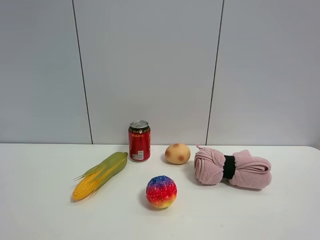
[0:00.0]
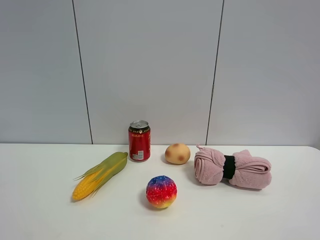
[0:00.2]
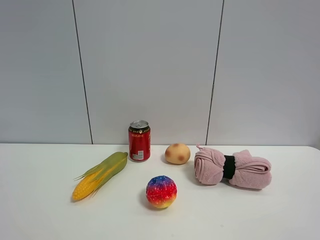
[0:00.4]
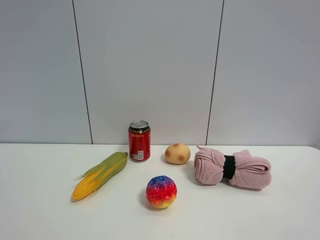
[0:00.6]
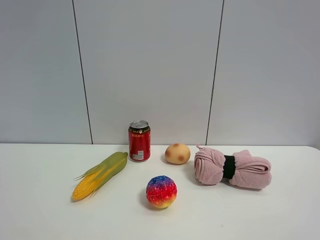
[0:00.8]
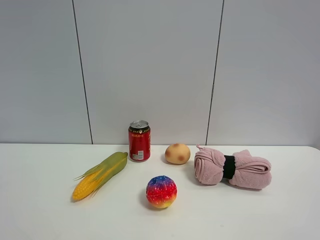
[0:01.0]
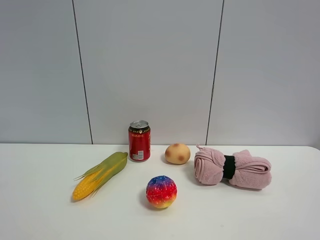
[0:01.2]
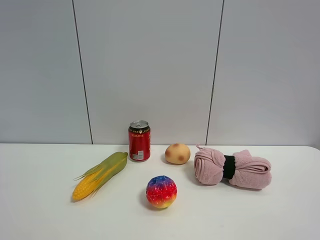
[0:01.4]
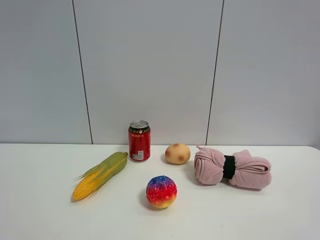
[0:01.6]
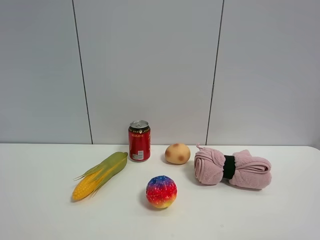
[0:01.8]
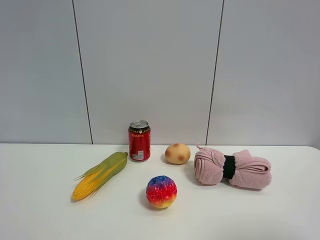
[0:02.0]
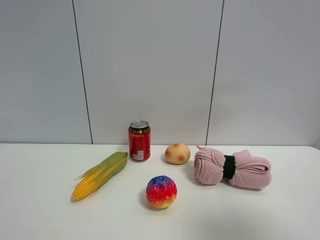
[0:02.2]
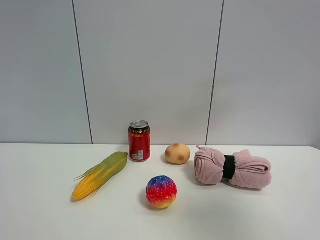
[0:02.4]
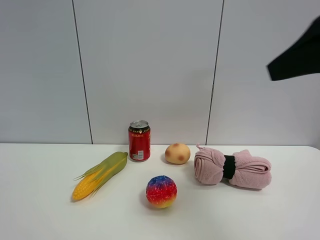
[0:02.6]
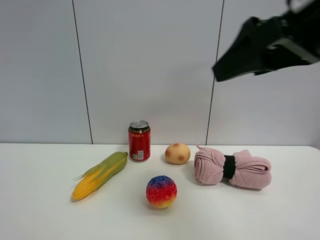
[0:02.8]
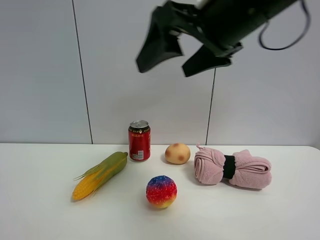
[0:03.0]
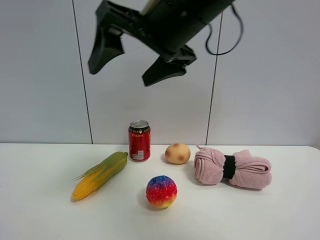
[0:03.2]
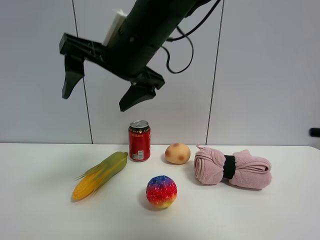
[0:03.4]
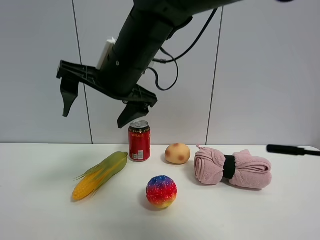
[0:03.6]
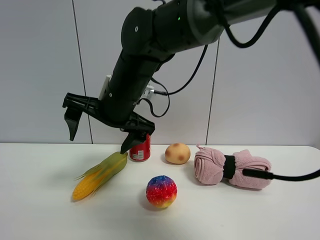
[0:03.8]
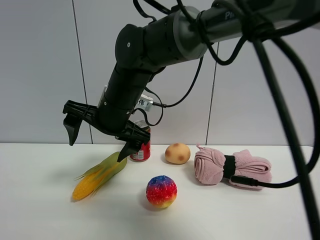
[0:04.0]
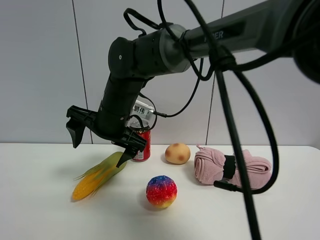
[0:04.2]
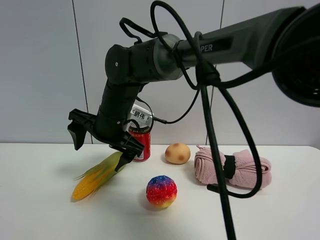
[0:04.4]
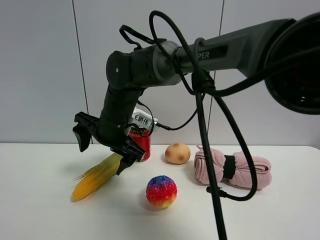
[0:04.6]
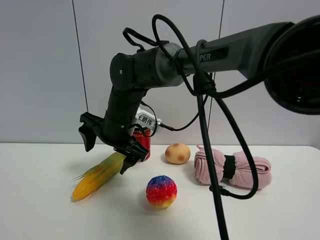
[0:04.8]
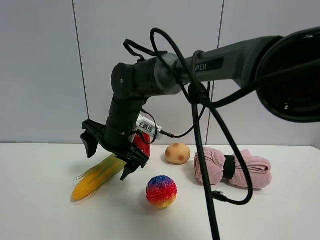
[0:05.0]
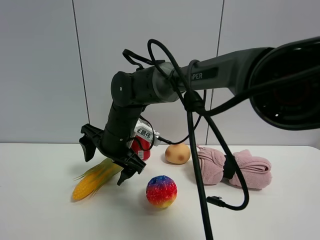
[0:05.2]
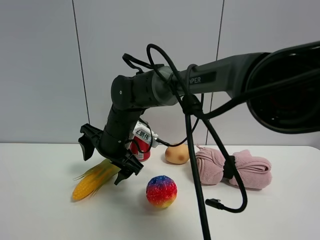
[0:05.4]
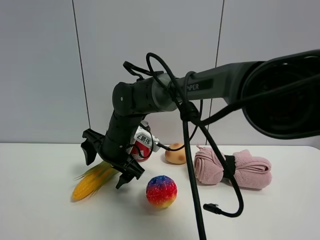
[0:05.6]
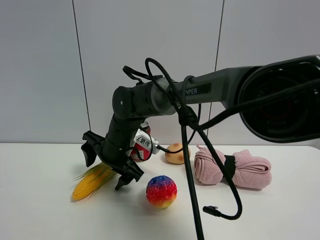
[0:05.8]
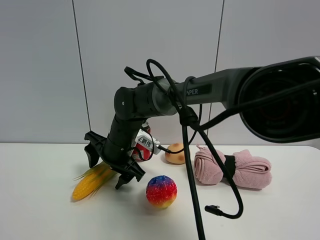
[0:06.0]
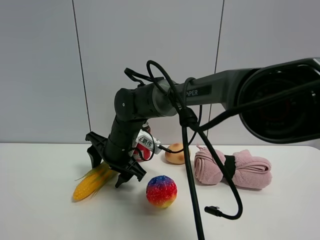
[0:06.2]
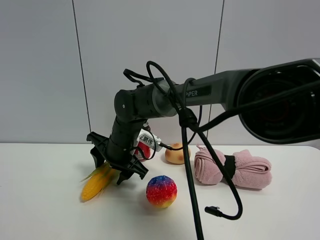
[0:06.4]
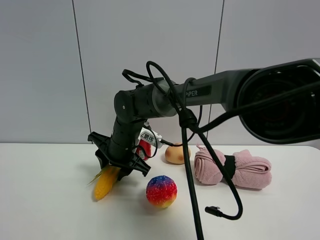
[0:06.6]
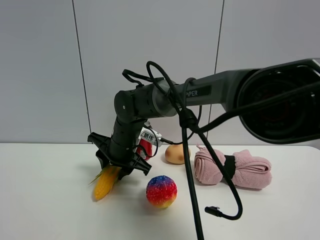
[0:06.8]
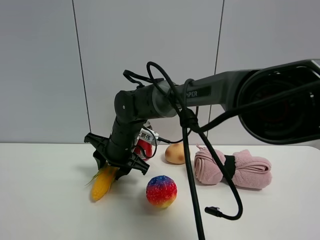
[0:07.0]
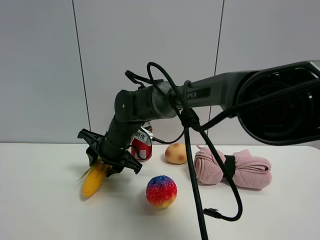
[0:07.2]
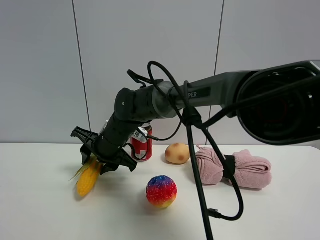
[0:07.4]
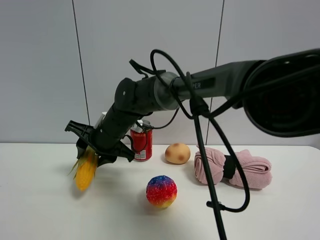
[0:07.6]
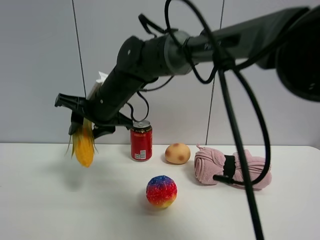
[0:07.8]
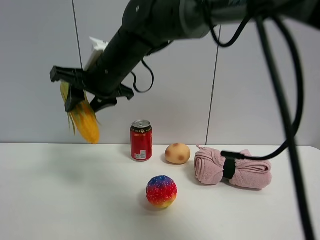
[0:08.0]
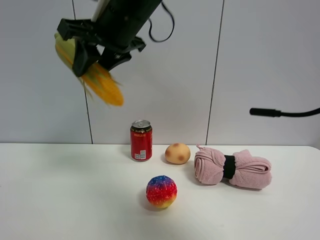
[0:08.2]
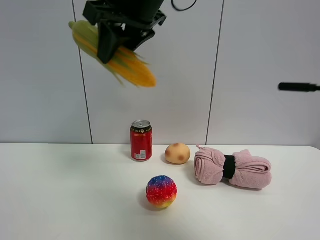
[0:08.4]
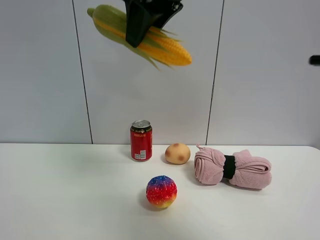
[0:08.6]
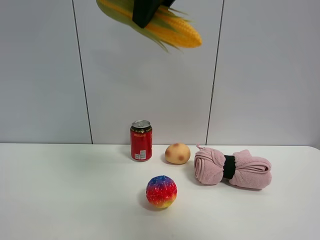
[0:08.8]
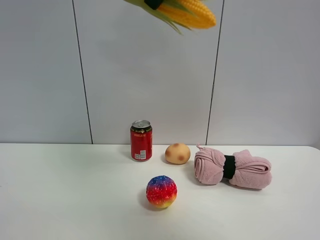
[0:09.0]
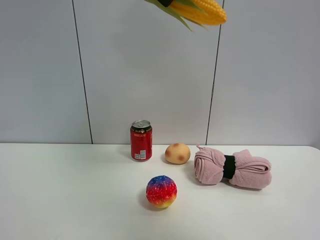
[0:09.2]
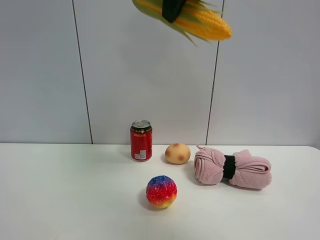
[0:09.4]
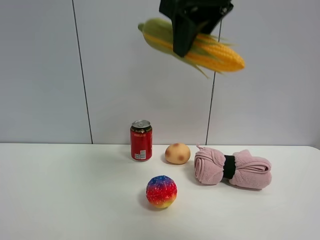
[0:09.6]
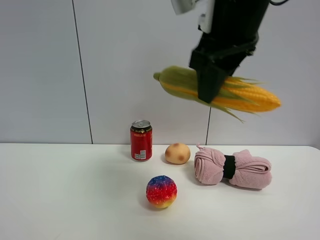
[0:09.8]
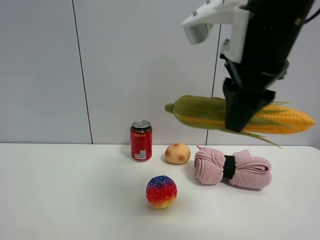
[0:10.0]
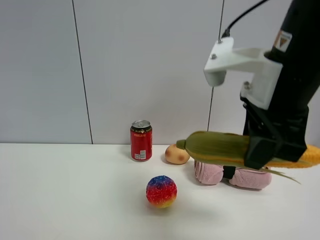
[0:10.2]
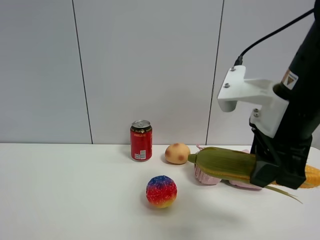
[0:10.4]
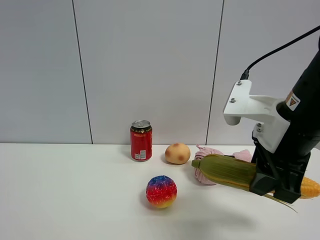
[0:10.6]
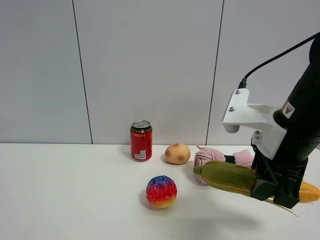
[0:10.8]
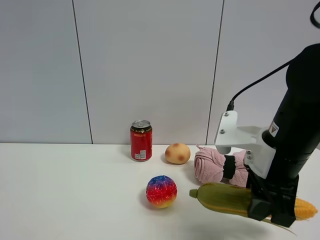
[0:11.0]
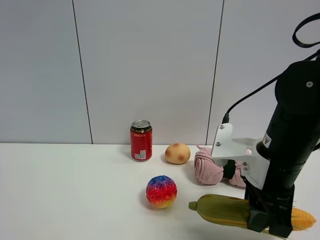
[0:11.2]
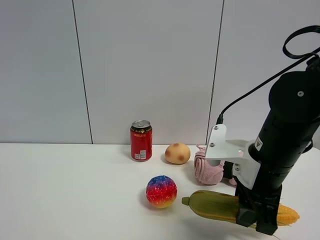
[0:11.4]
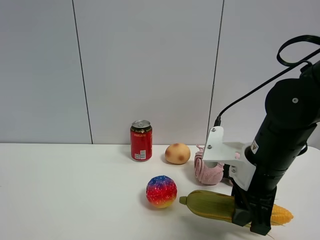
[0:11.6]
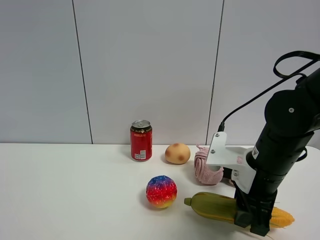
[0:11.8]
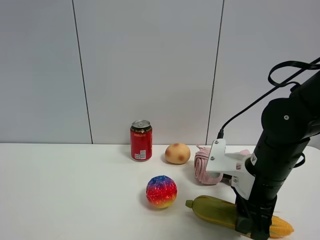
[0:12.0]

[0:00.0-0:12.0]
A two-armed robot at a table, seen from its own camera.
Task of the whole recording: the gripper move the object.
0:00.0 to 0:01.6: Both grippers stay about where they are.
0:01.6 to 0:03.0: The right gripper moves forward and to the left, approximately 35 cm.
0:03.0 to 0:04.4: The right gripper goes some 25 cm downward, to the left and forward.
0:04.4 to 0:06.0: The right gripper shifts roughly 5 cm downward, and closes up.
0:06.0 to 0:07.6: The right gripper closes.
0:07.6 to 0:09.0: The right gripper heads upward and to the right, covering about 35 cm.
0:09.0 to 0:10.4: The right gripper is displaced downward and to the right by roughly 25 cm.
0:10.4 to 0:12.0: The right gripper shifts roughly 10 cm downward.

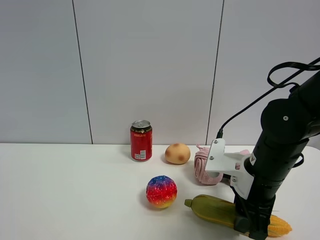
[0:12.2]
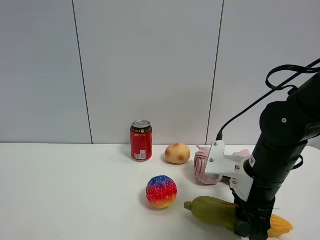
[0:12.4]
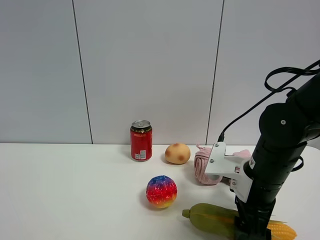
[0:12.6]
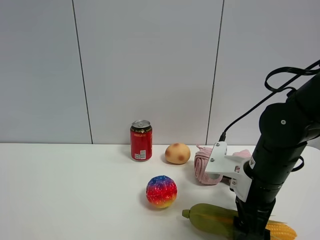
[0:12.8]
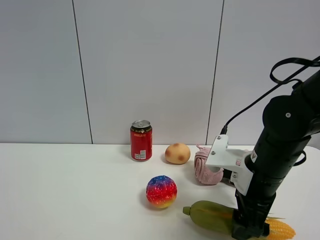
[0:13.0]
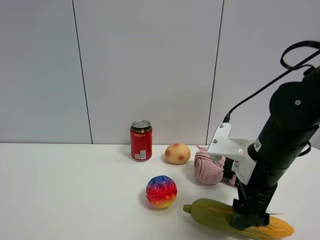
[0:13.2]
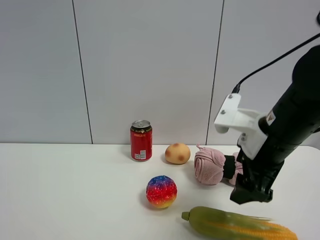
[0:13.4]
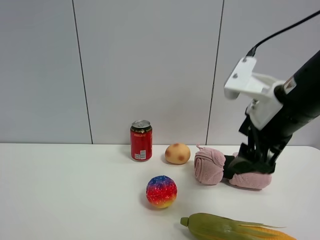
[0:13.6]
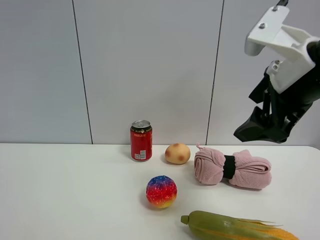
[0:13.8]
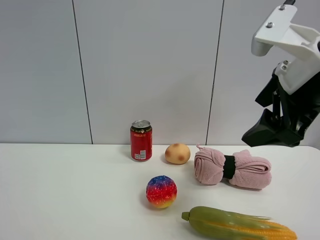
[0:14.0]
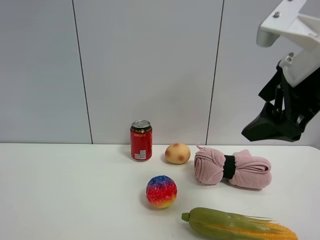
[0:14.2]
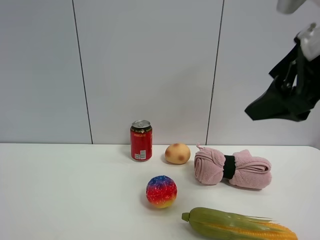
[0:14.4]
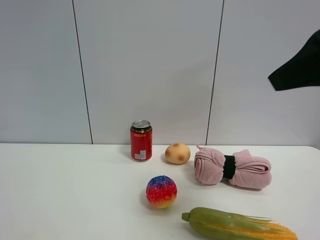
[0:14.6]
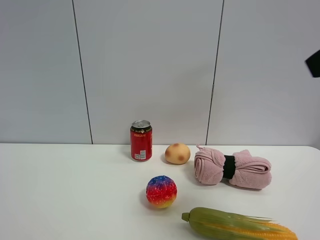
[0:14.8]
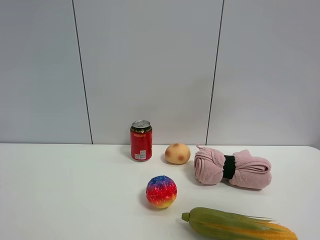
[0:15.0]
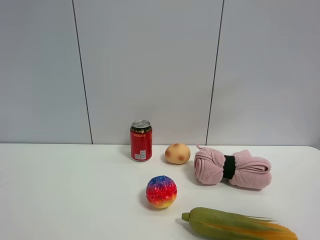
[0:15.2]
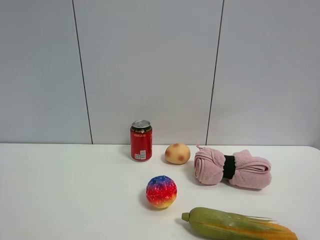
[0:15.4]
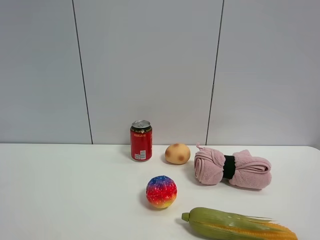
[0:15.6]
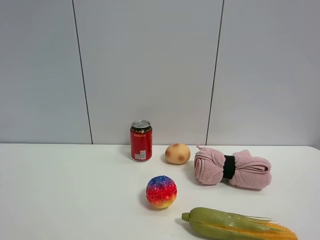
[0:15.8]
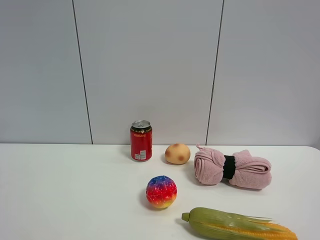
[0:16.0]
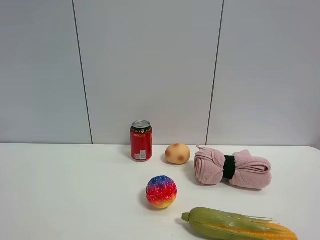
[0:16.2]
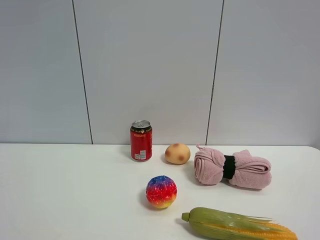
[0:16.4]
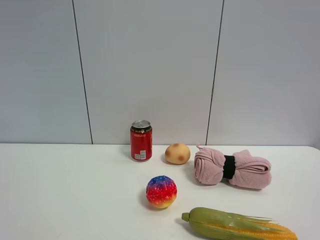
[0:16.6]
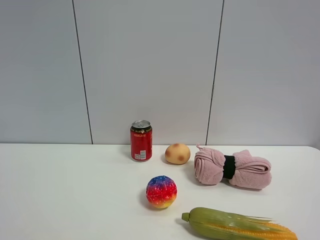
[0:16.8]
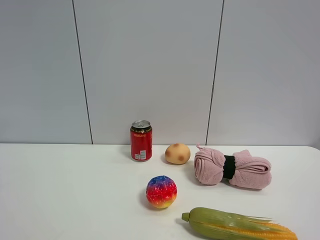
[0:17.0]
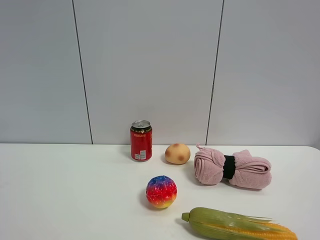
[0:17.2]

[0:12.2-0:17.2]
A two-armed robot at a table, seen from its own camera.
Task of the whole recording: the gripper move the object.
0:12.2 to 0:13.8: The right gripper shifts approximately 15 cm upward, and opens up.
0:13.8 to 0:15.6: The right gripper goes about 25 cm backward and to the right.

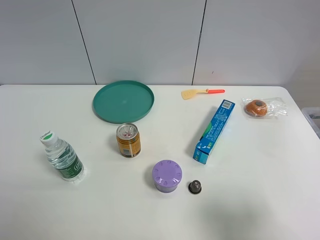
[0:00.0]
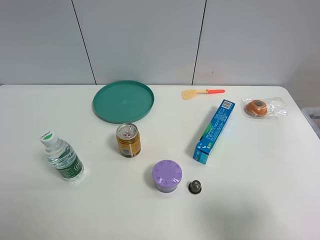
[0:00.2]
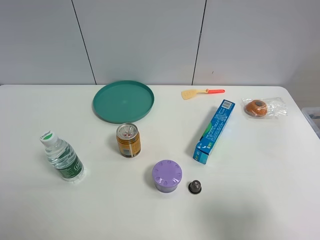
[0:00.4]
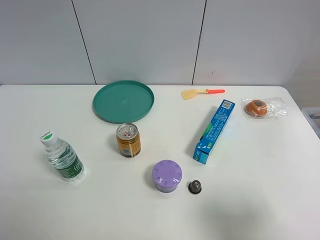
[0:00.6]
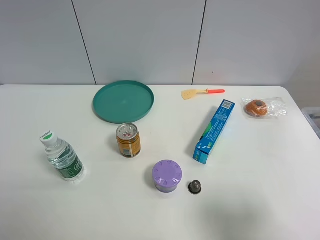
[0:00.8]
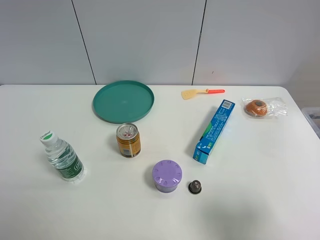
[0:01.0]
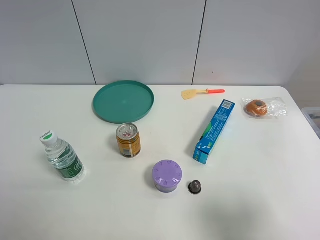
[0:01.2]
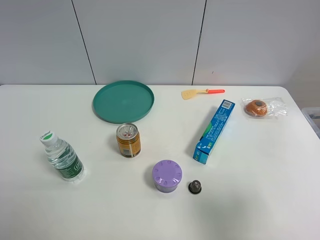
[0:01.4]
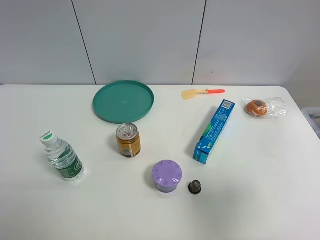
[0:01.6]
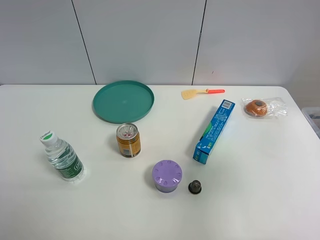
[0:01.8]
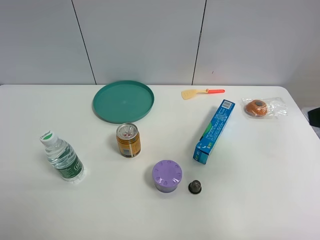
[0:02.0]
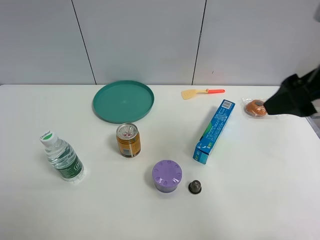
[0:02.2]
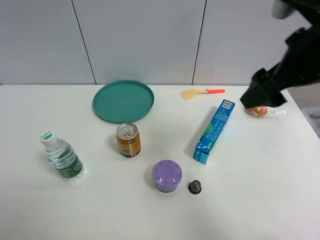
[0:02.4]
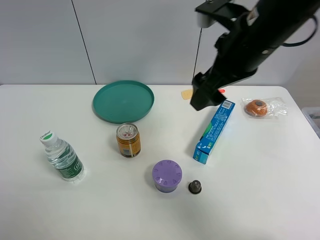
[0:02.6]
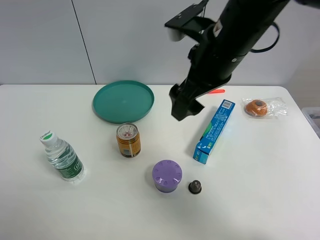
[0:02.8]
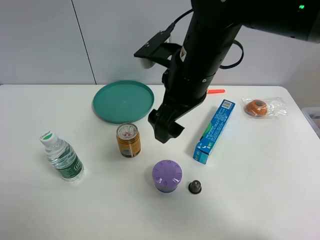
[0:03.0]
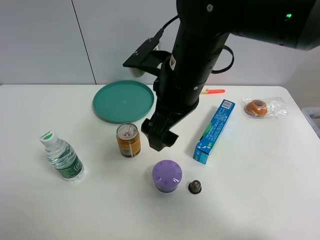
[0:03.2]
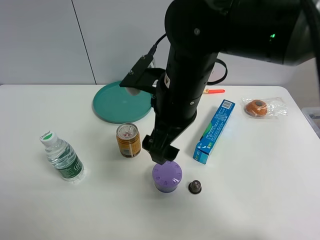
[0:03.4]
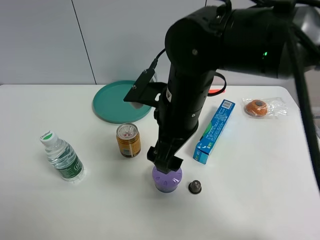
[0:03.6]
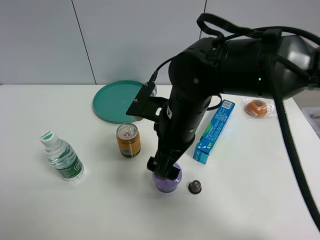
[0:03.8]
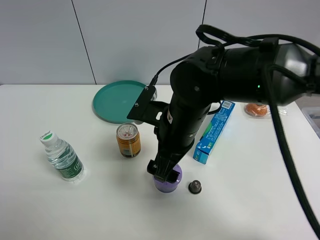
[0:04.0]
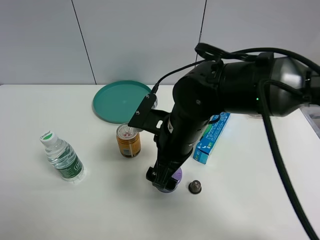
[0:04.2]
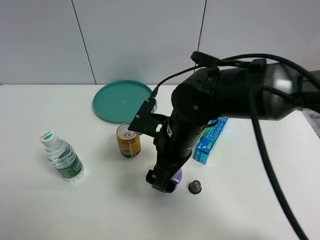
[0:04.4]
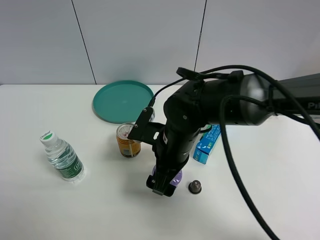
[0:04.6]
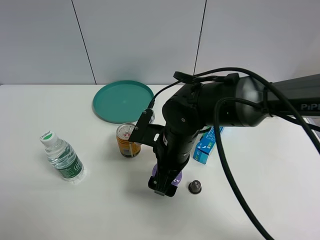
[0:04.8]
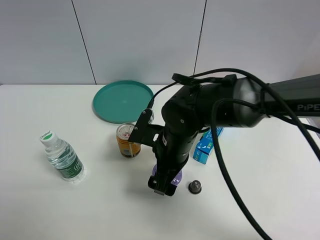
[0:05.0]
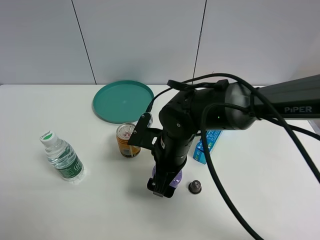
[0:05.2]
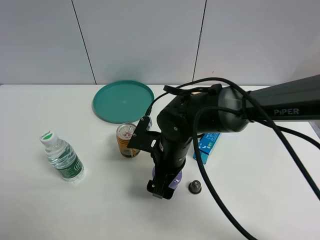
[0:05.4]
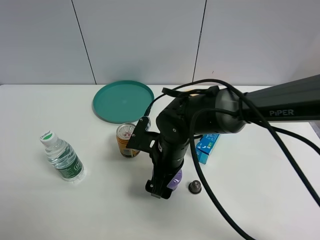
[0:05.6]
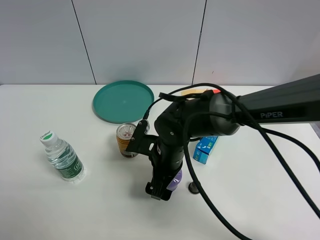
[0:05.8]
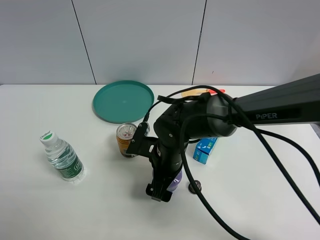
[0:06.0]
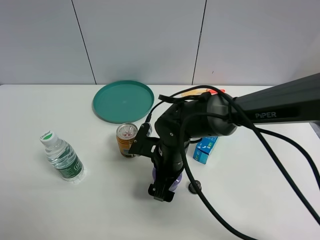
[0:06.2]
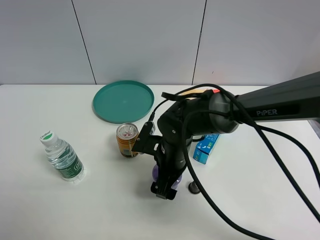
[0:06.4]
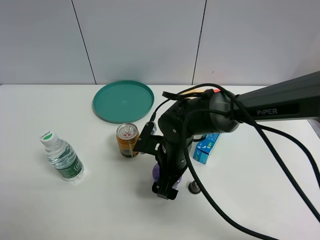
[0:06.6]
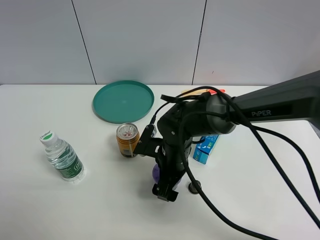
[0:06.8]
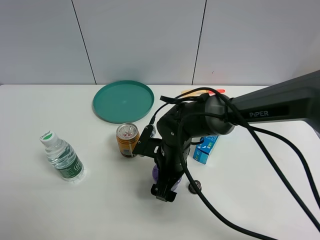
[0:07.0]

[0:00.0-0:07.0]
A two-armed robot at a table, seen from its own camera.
Task of the whole recording: the gripper move the object.
0:01.4 to 0:02.8: The right gripper shifts approximately 35 cm forward and to the left.
0:02.8 to 0:04.2: The right gripper goes roughly 15 cm downward.
0:04.2 to 0:05.6: The right gripper shifts about 5 cm downward.
0:05.6 to 0:07.0: There are only small adjustments of the grippers.
